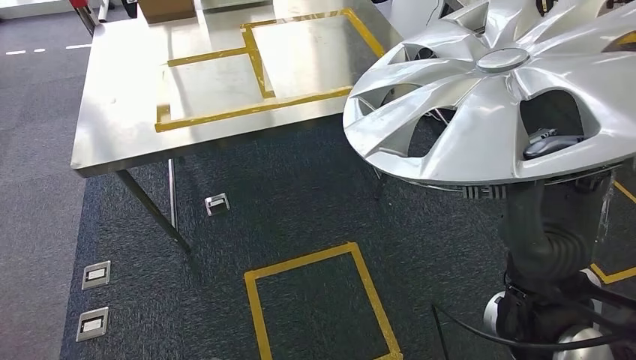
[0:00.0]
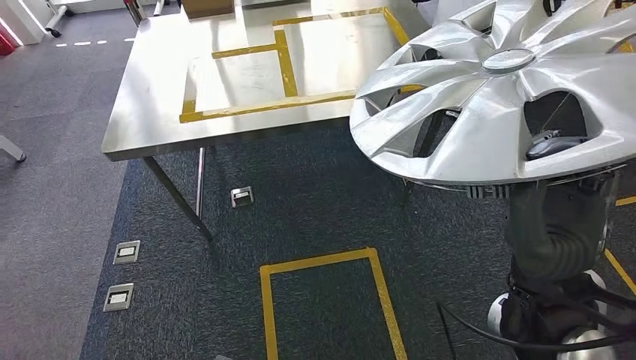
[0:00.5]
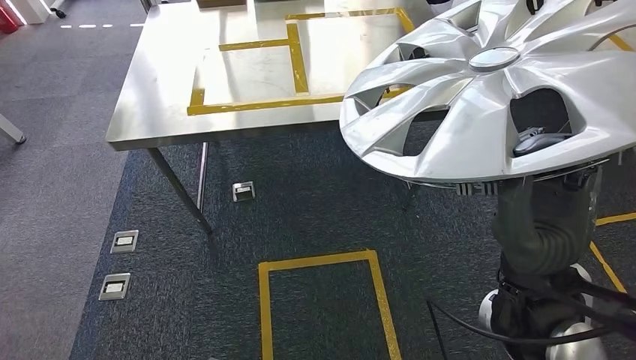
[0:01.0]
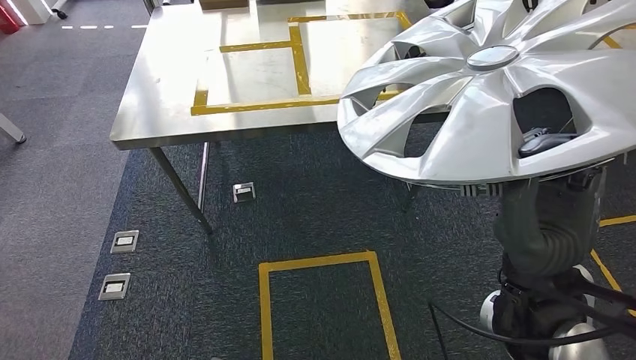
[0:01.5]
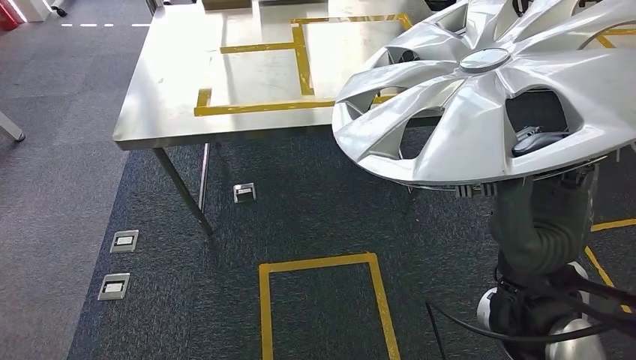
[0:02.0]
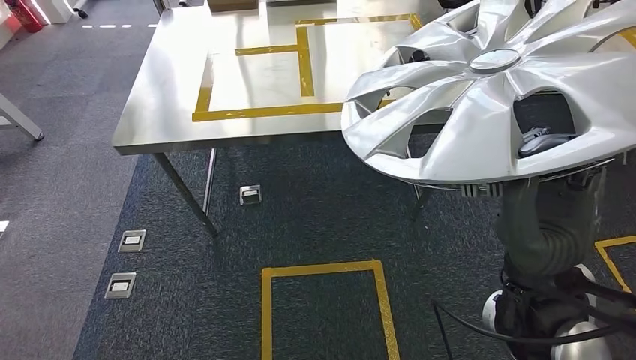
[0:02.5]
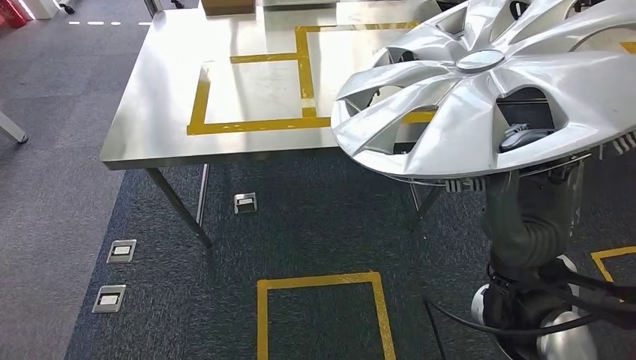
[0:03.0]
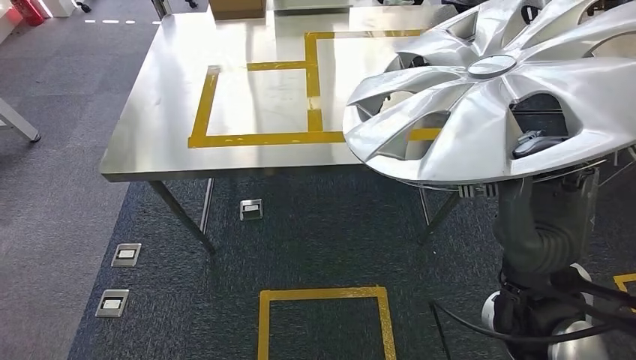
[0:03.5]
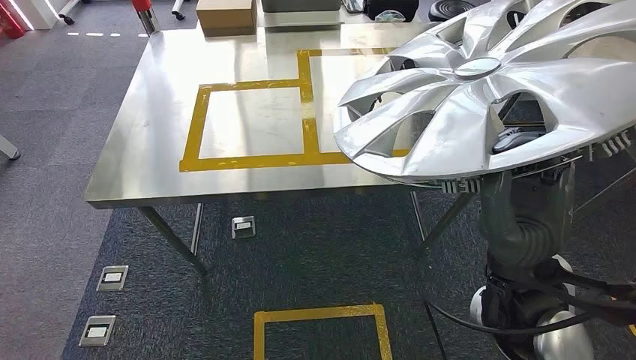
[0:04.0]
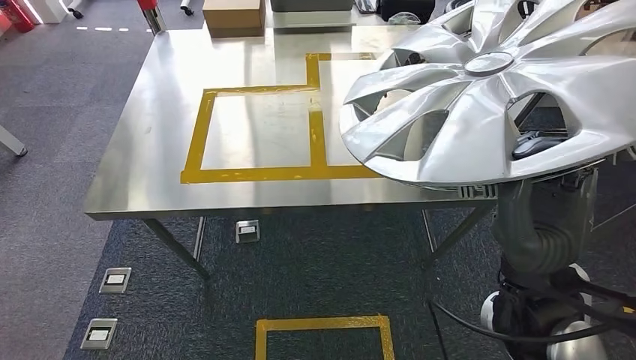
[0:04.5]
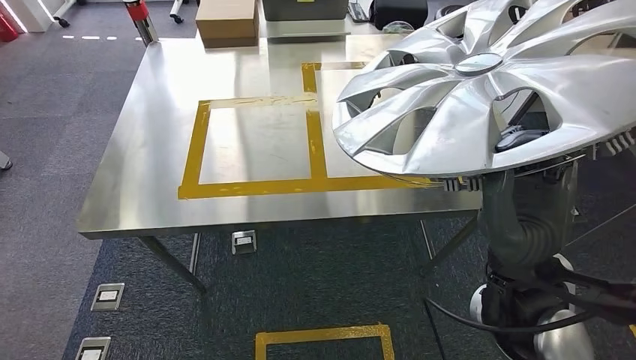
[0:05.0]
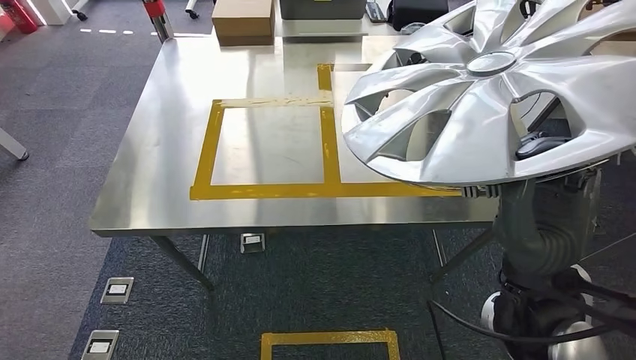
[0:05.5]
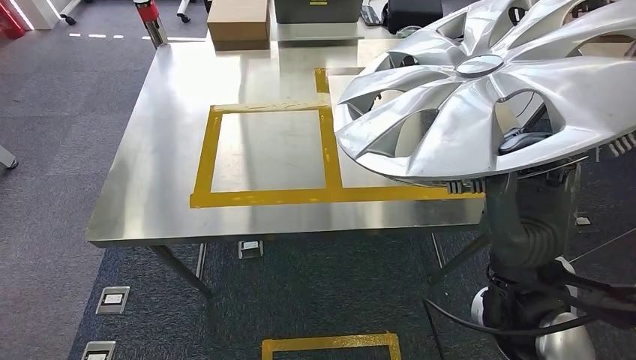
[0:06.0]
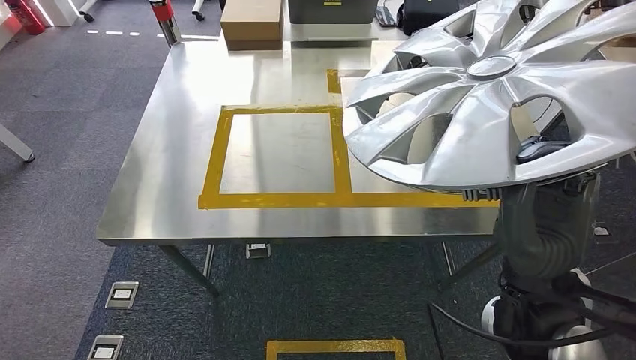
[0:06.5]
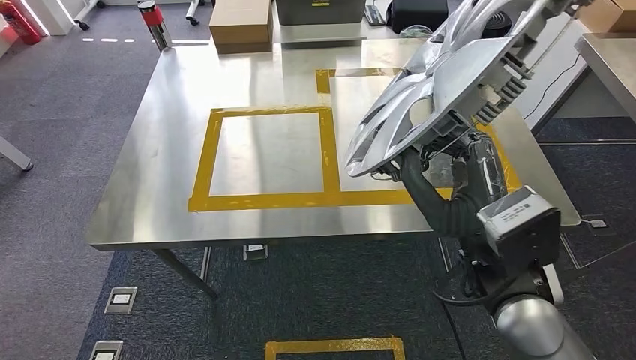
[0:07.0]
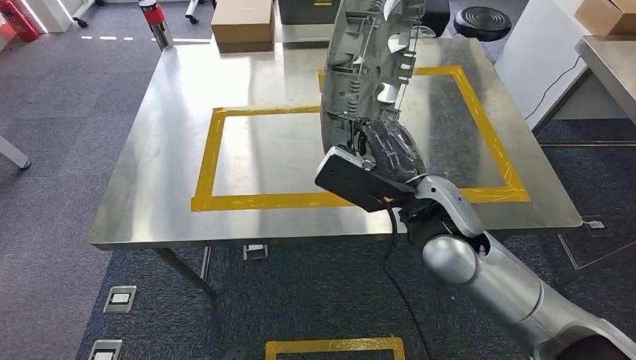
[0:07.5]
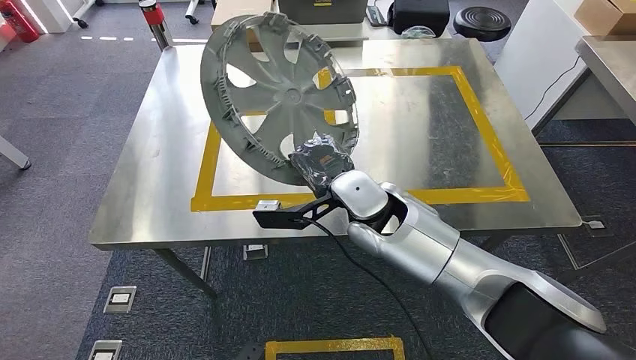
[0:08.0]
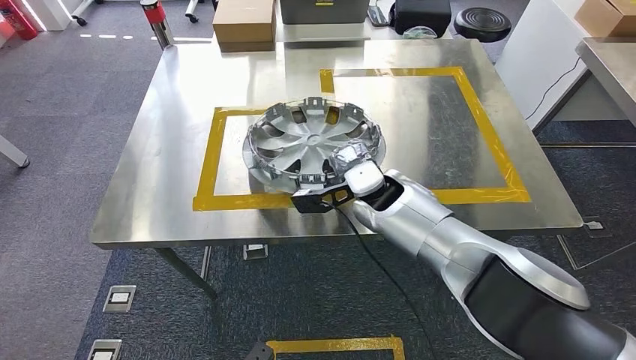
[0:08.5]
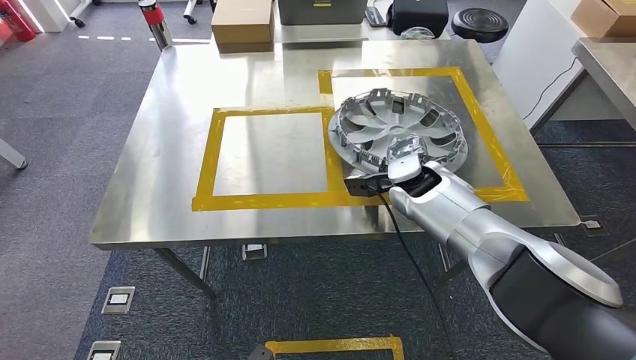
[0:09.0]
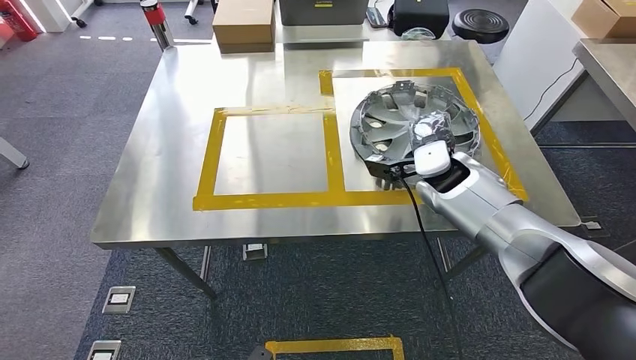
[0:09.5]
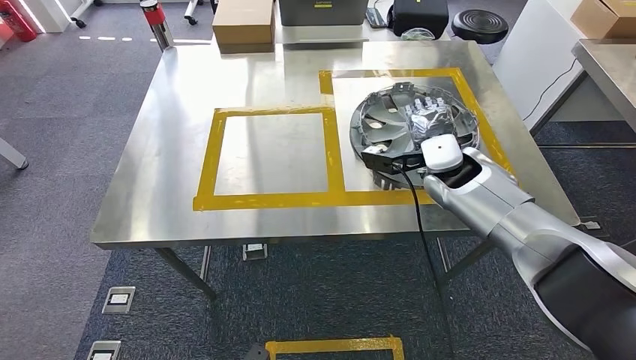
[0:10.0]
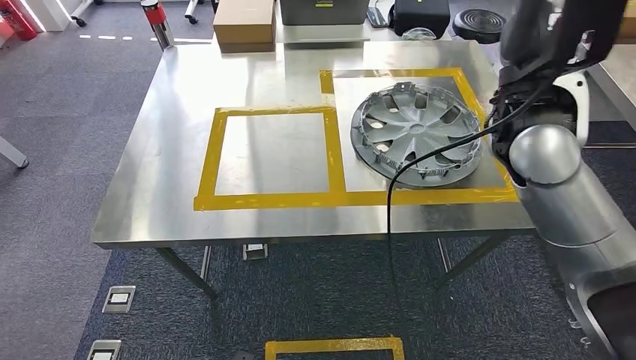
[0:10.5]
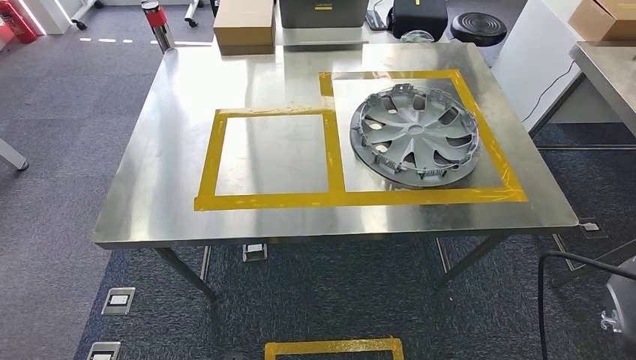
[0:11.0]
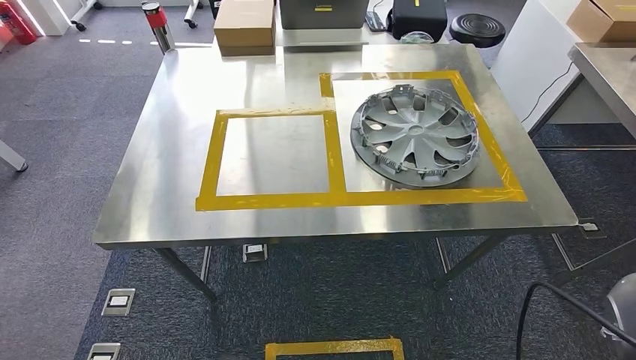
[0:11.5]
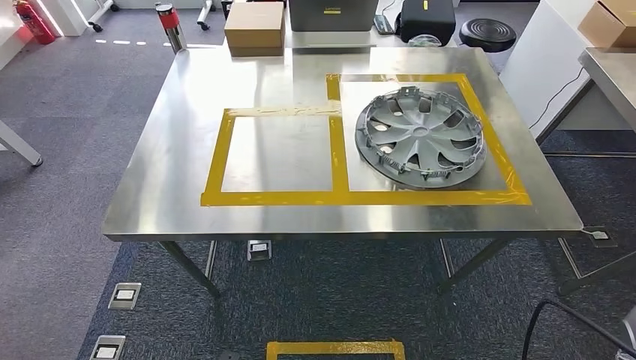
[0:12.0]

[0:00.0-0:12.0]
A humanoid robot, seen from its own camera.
Step, 0:00.0 to 0:04.0: Move the large material to the front of the workbench.
Step, 0:04.5 to 0:09.5: Insert the large material into the corresponding hole on the workbench.

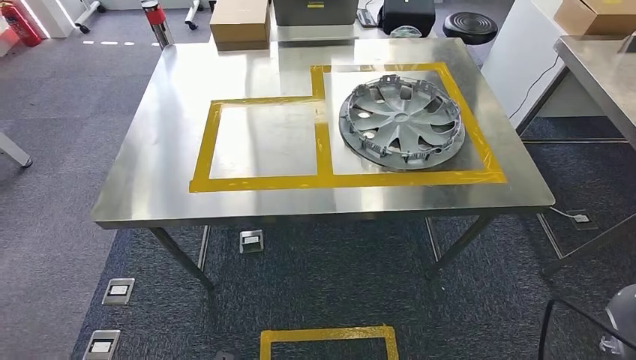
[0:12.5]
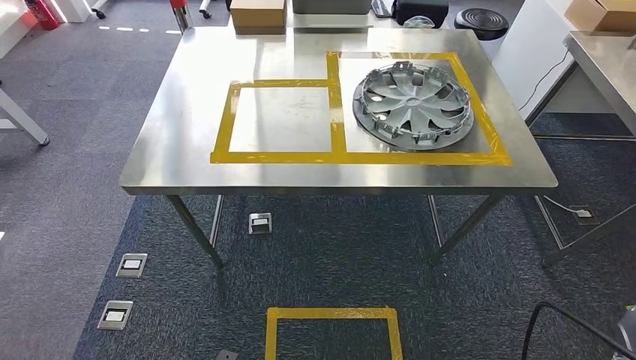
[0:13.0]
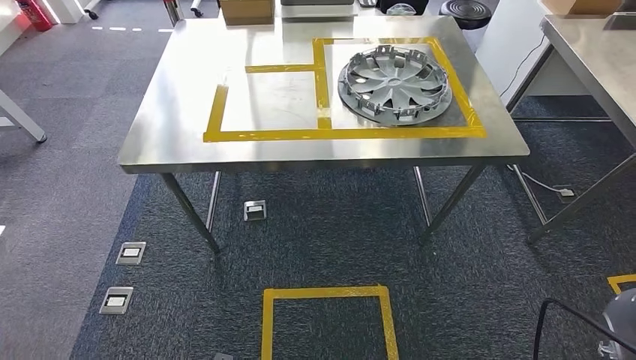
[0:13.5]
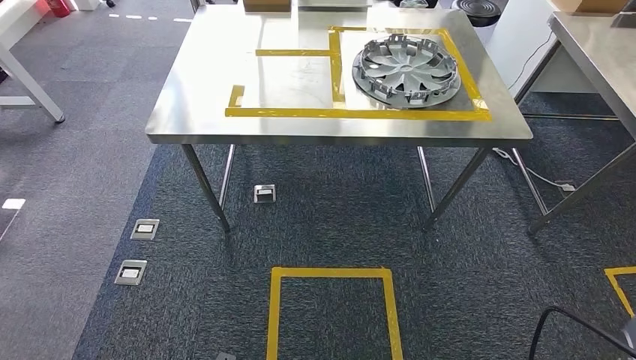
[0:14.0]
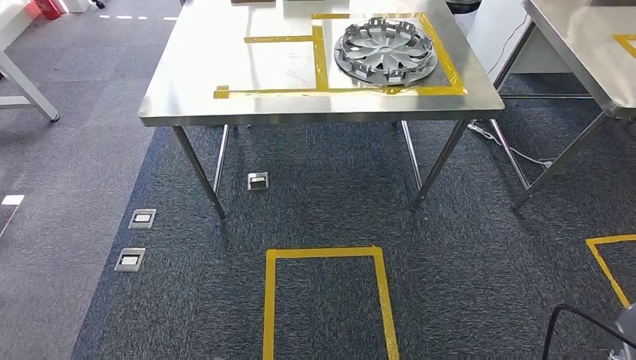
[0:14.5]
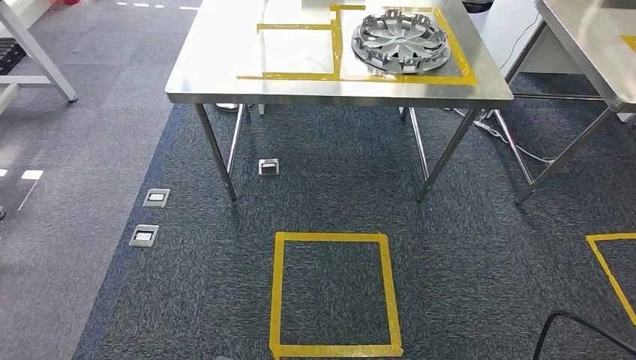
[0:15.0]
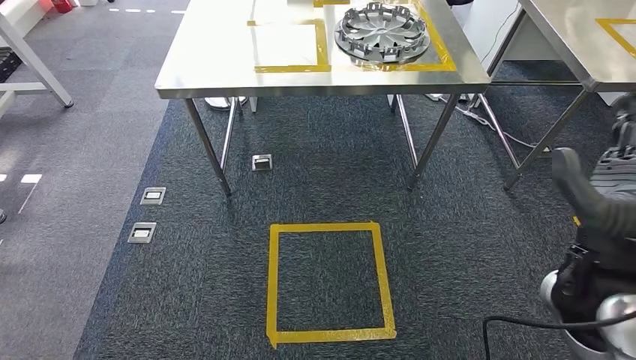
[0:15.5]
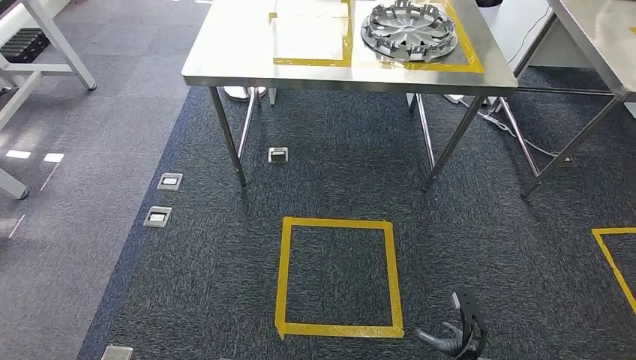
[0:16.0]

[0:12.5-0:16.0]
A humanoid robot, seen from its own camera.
Step, 0:12.5 to 0:16.0: Move to the initial position of the shelf.
